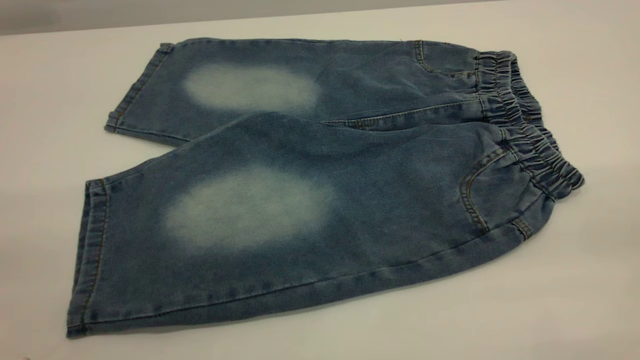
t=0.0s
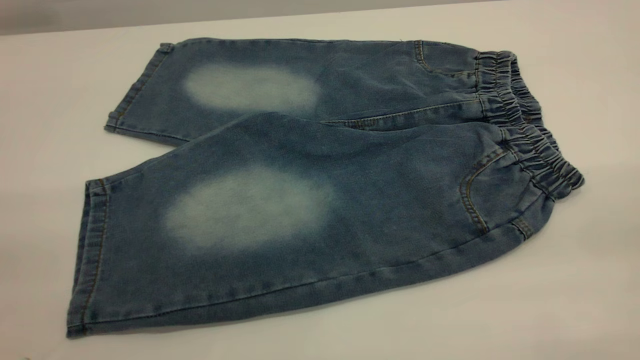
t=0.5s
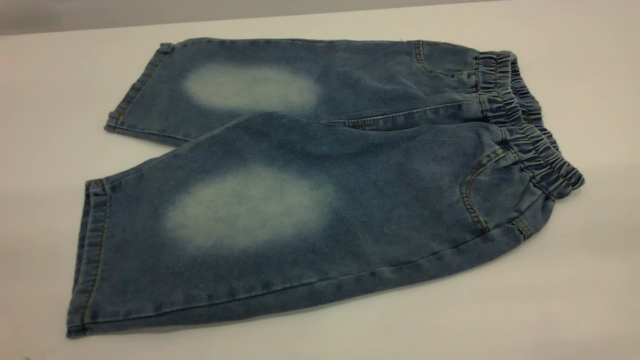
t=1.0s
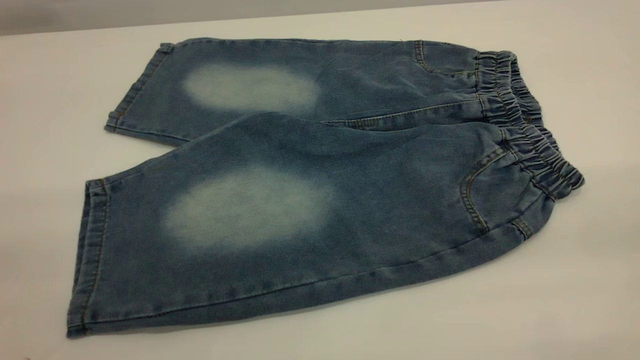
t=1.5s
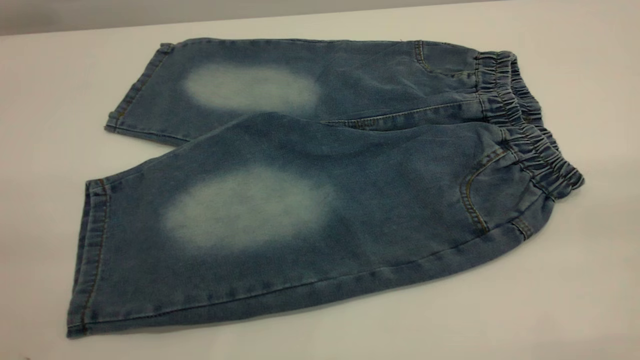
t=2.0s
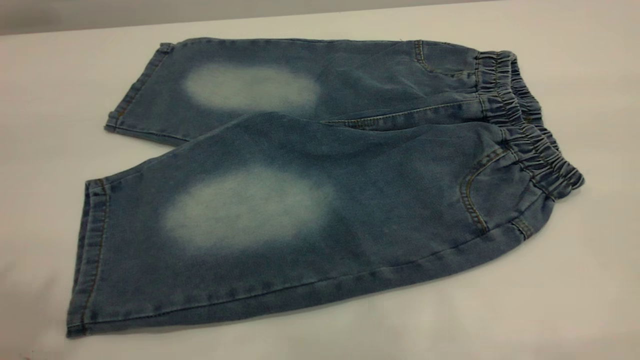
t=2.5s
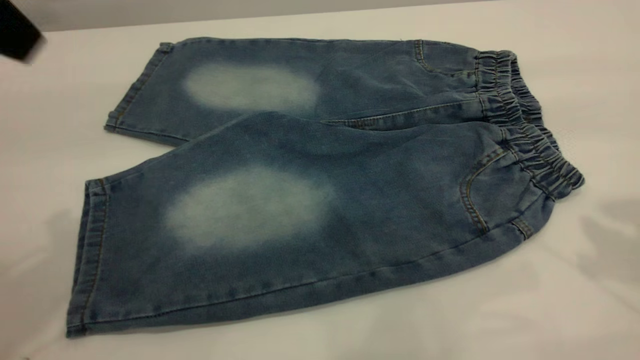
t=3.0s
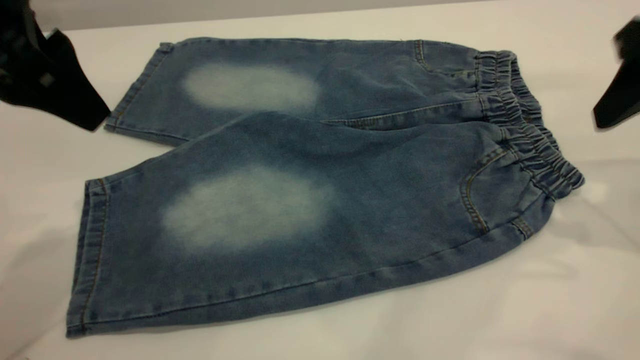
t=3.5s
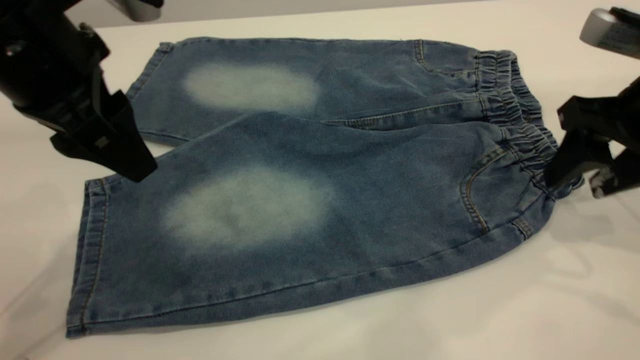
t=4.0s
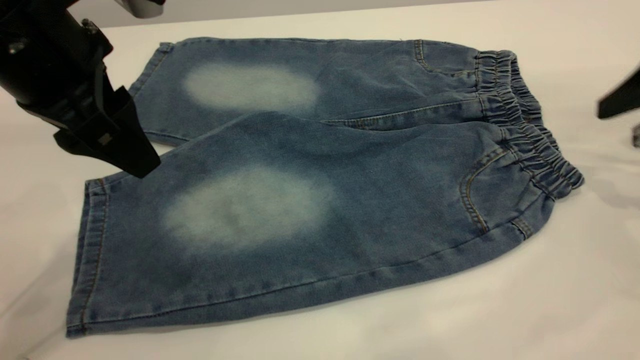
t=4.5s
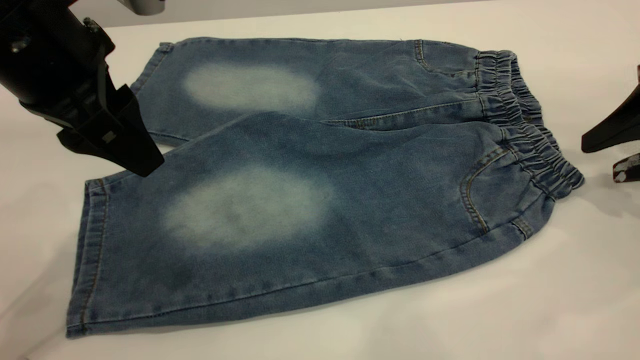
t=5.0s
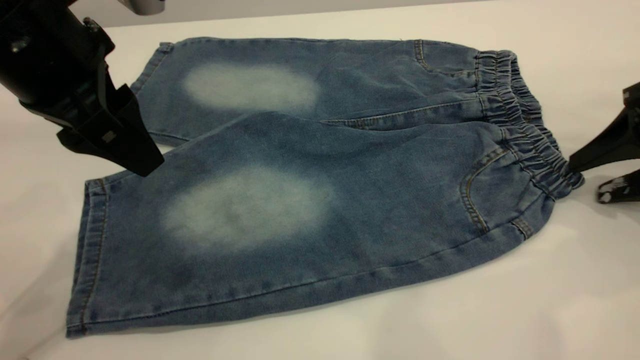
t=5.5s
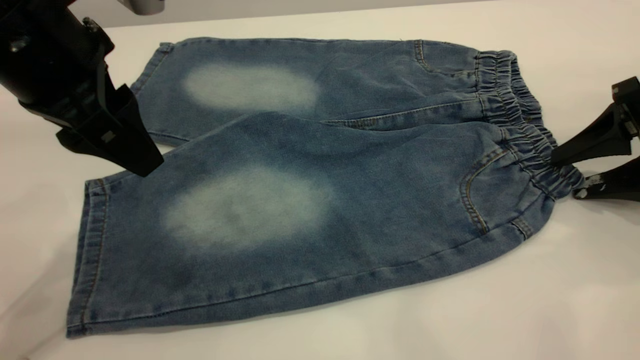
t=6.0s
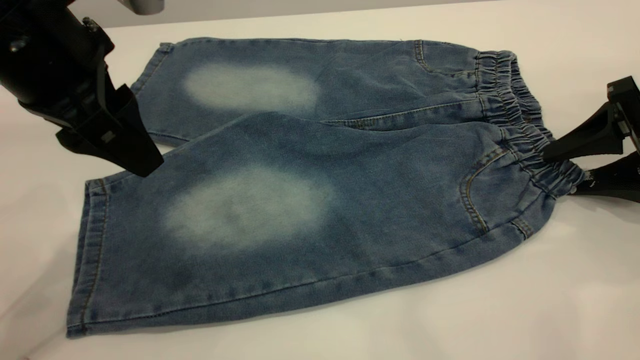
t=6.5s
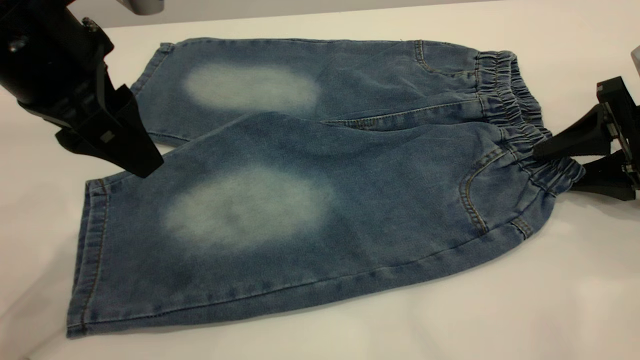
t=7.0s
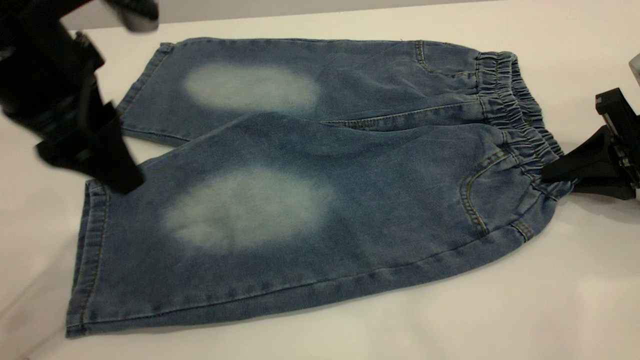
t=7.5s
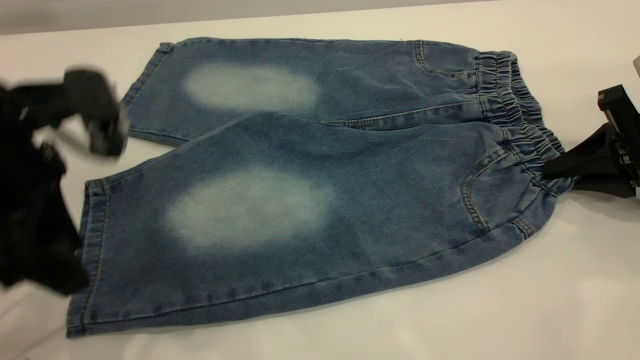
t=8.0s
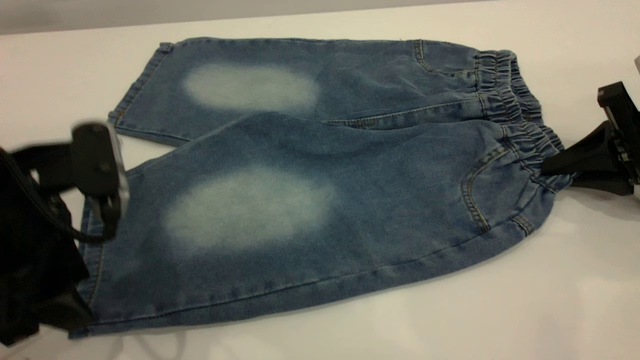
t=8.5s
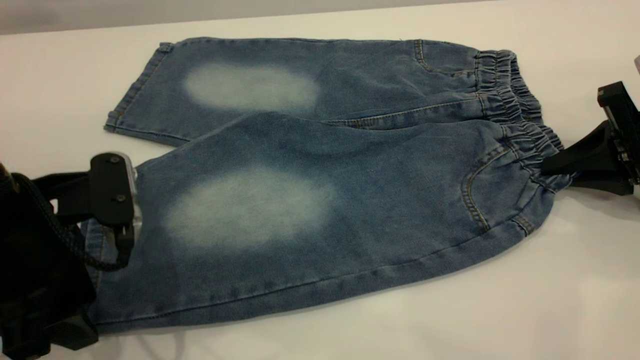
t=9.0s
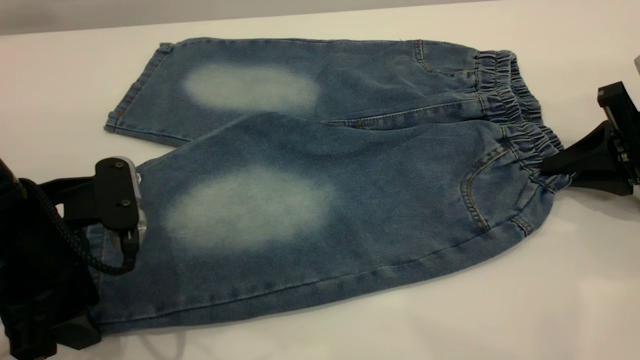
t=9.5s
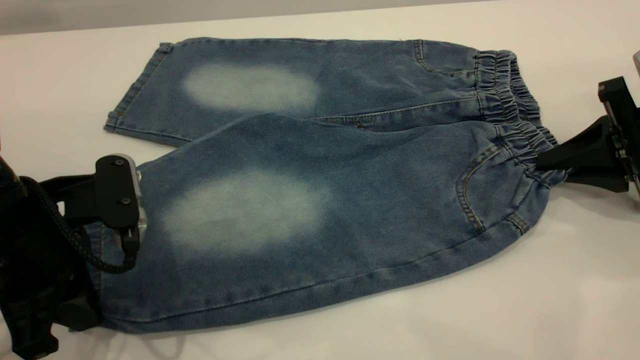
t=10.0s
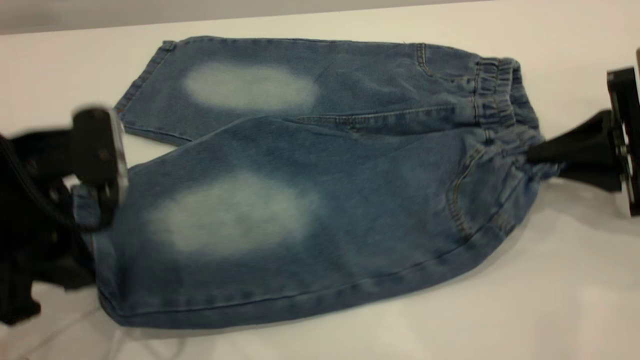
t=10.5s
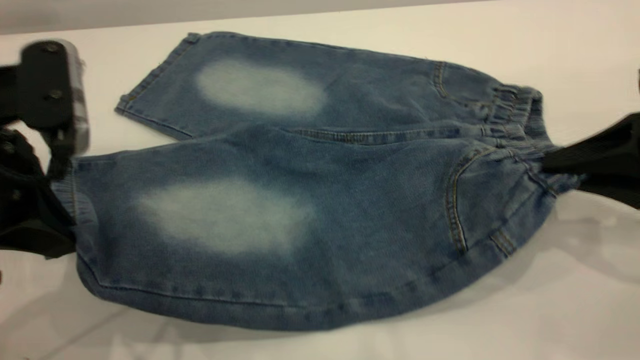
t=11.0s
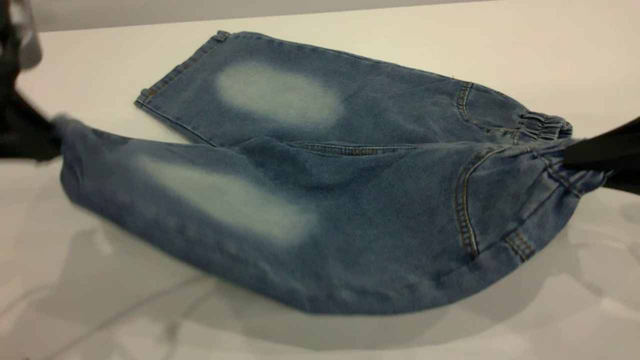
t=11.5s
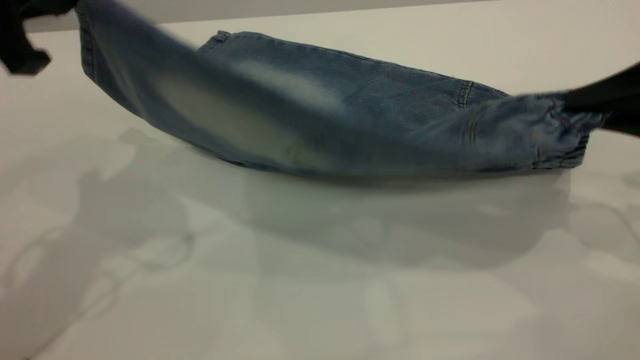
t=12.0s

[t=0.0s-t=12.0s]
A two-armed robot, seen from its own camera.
t=2.0s to t=4.0s: The right gripper shifts some 35 cm forward and downward. Meanwhile the left gripper goes some 30 cm forward, downward and to the right.
t=4.0s to t=6.0s: The right gripper moves to the right and downward, about 10 cm.
t=6.0s to t=8.0s: The left gripper travels backward by approximately 5 cm; the right gripper closes up.
t=8.0s to t=10.0s: The left gripper is displaced downward by some 5 cm, and closes up.
t=10.0s to t=12.0s: The right gripper moves upward and backward, approximately 10 cm. The left gripper moves upward and forward, approximately 15 cm.

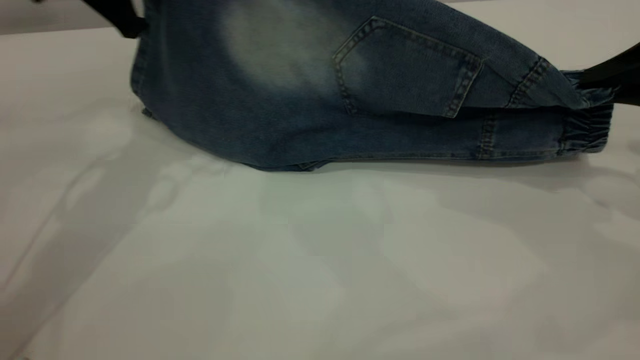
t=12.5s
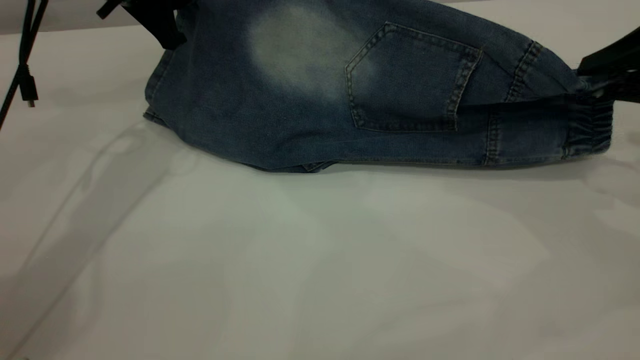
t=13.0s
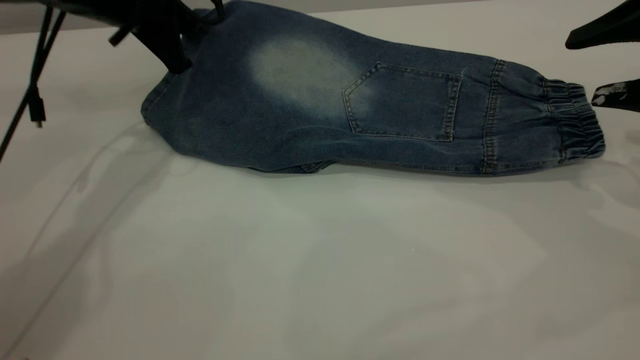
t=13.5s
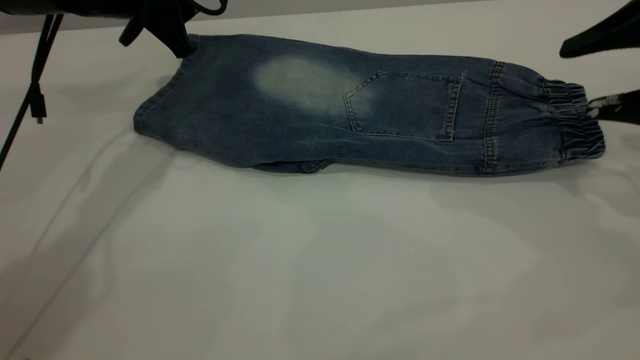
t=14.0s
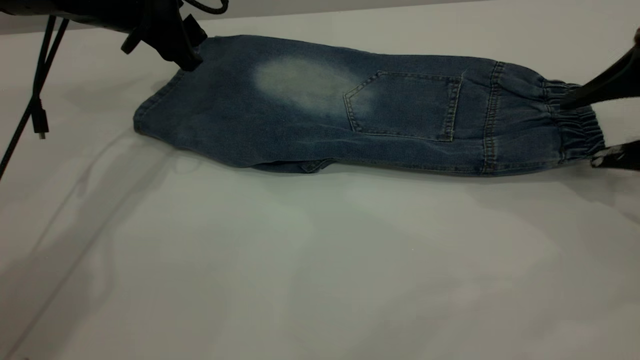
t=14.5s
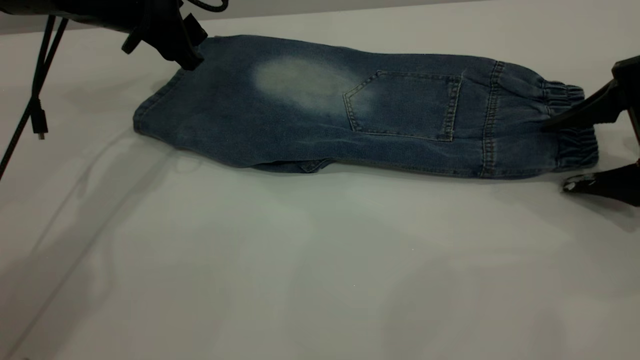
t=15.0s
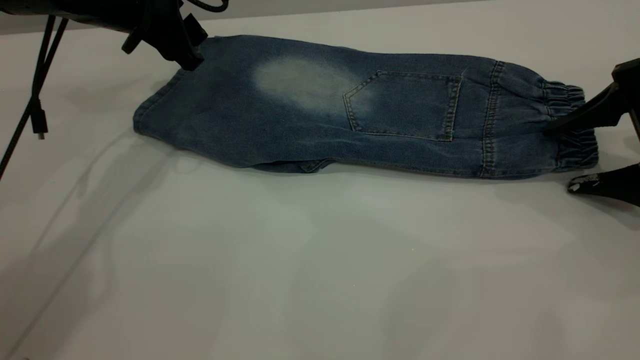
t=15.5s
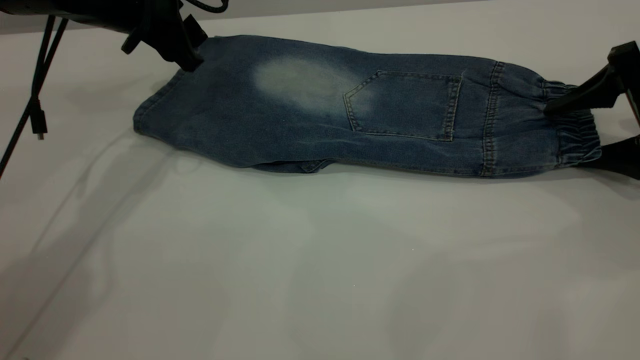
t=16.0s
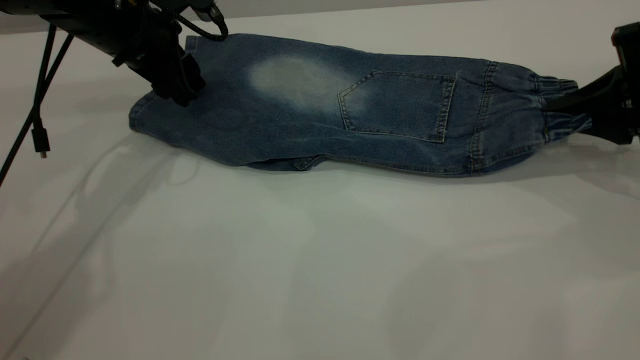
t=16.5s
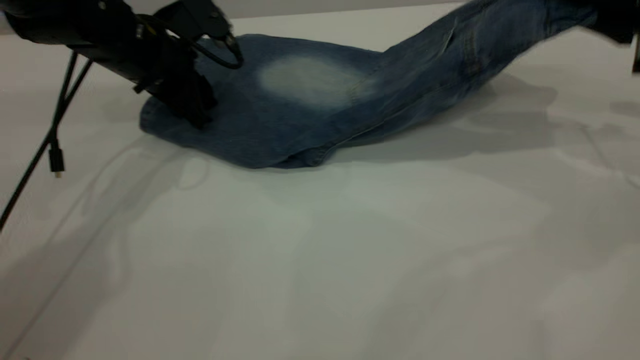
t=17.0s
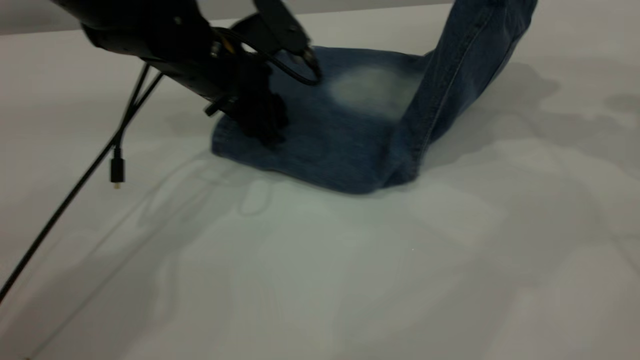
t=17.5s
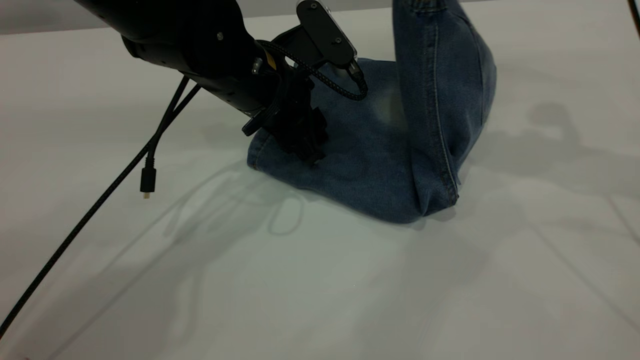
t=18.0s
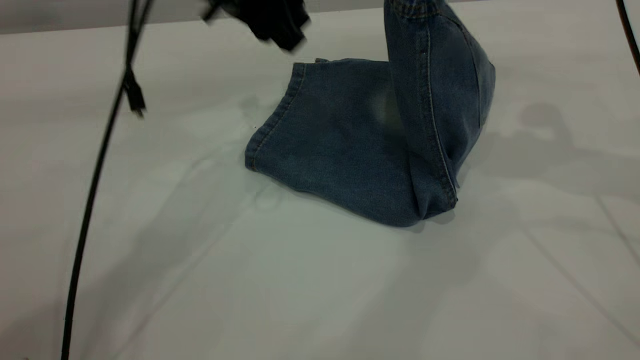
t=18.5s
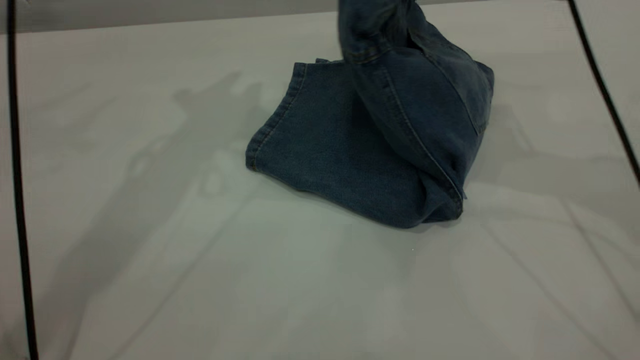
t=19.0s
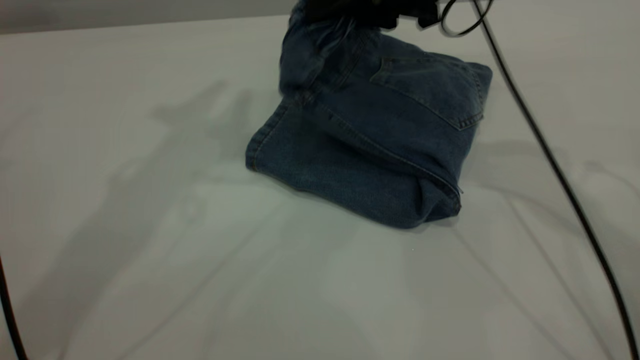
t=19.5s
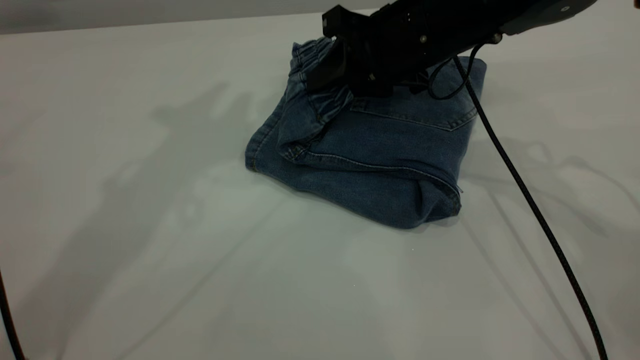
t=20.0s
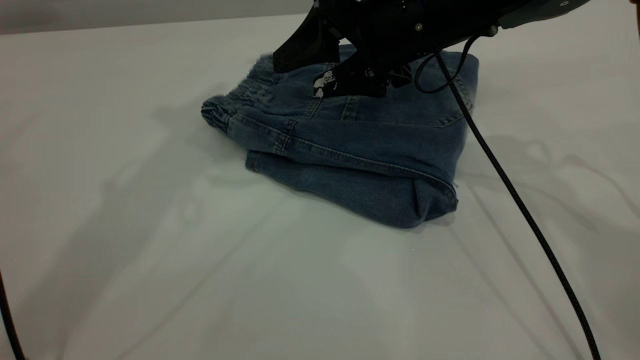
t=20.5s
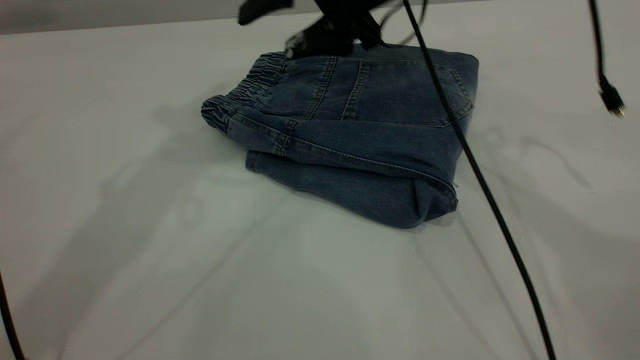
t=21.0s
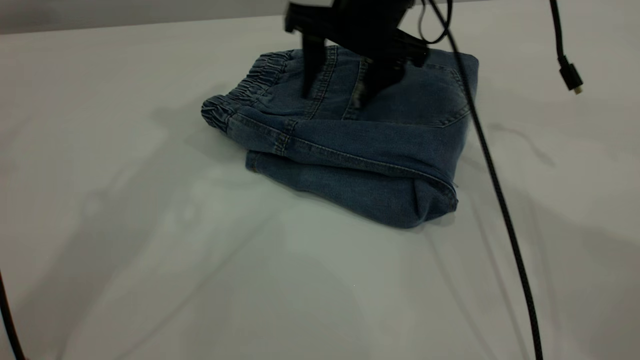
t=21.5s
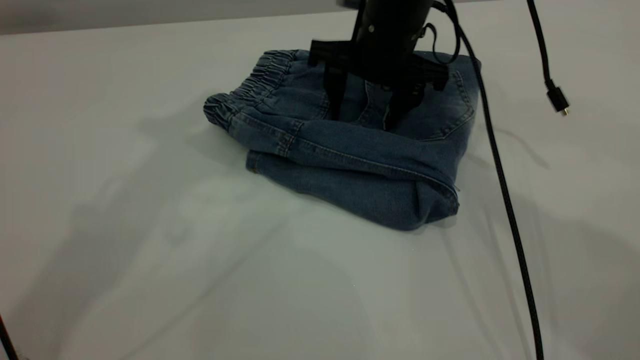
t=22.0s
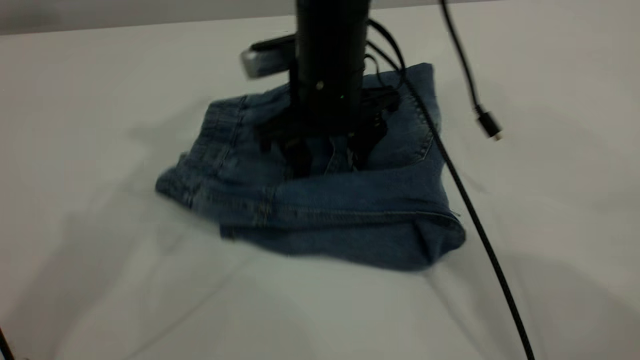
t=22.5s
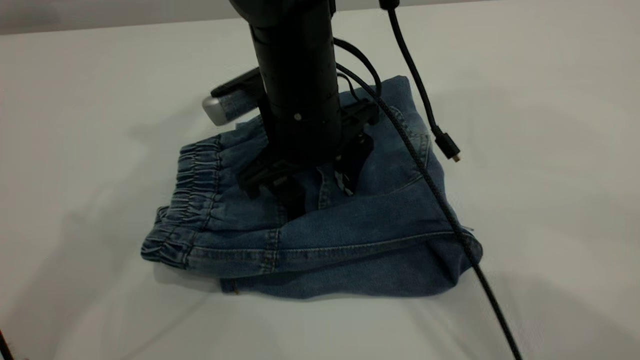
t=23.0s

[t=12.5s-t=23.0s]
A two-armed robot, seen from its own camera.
Step, t=14.0s to t=21.0s: Fold your pants from right to left.
t=12.5s to t=14.5s: The right gripper opens up. The left gripper heads downward, covering roughly 5 cm, and opens its fingers.
t=14.5s to t=16.5s: The right gripper closes up.
t=16.5s to t=19.0s: The left gripper moves upward, approximately 20 cm; the right gripper moves to the left and upward, about 20 cm.
t=19.0s to t=21.0s: The right gripper travels to the left and forward by roughly 15 cm, and opens its fingers. Meanwhile the left gripper shifts approximately 5 cm upward.
t=21.0s to t=23.0s: The right gripper is displaced backward, to the left and downward by about 10 cm. The left gripper ends up some 5 cm from where it was.
